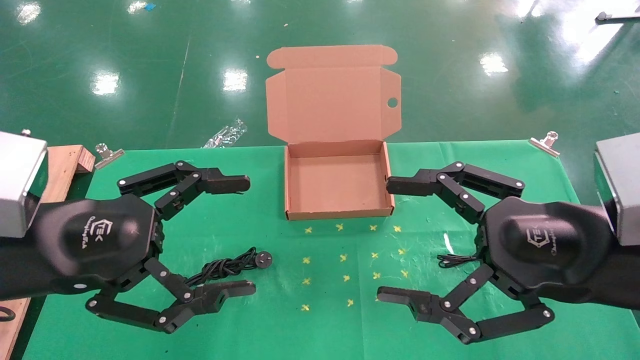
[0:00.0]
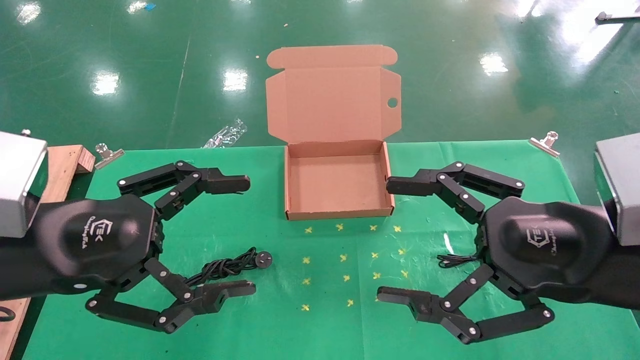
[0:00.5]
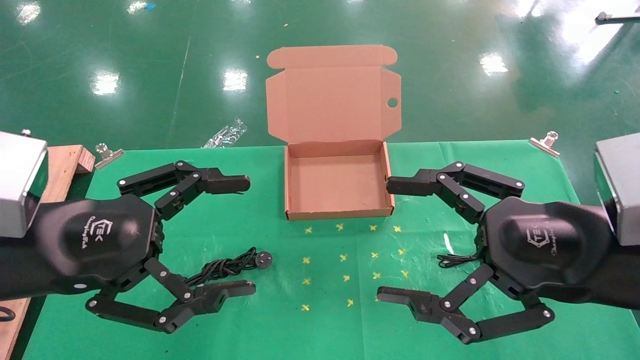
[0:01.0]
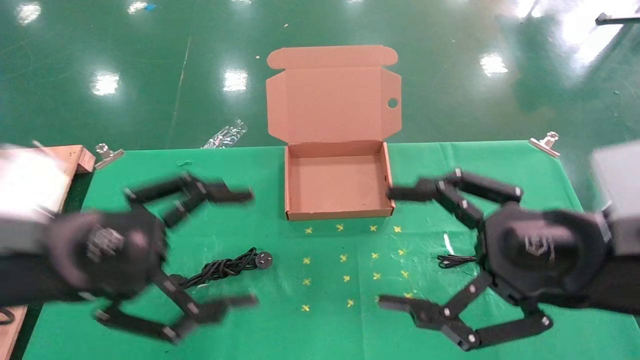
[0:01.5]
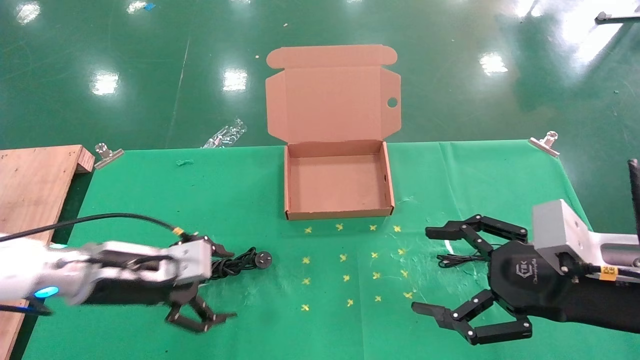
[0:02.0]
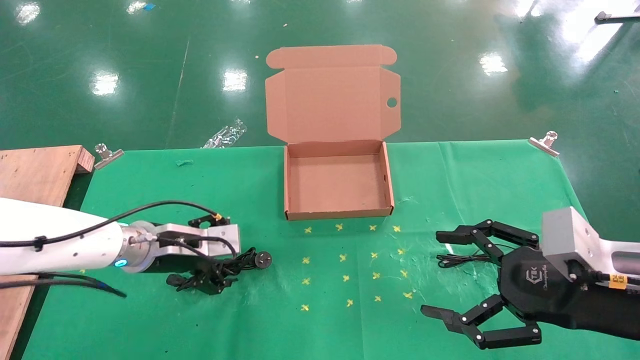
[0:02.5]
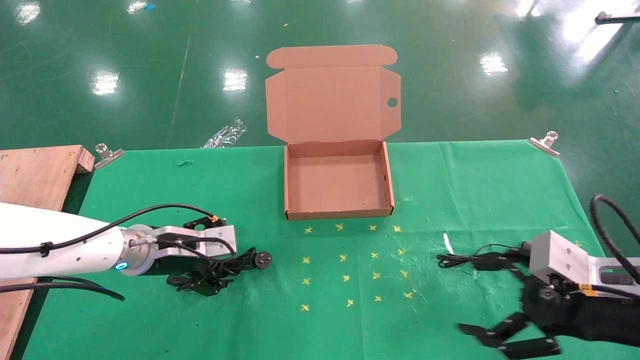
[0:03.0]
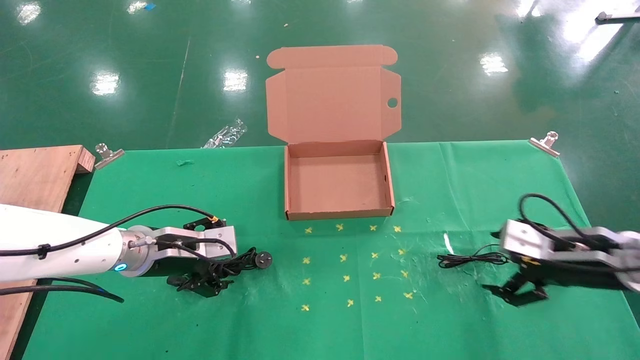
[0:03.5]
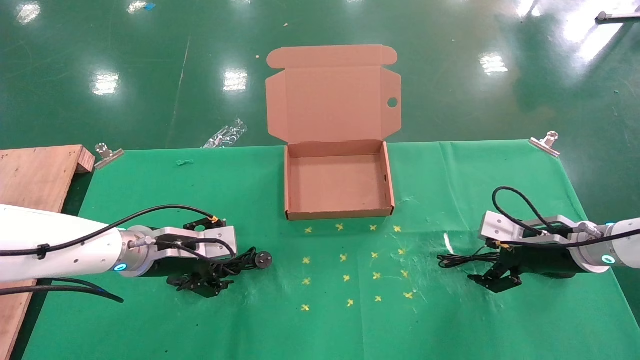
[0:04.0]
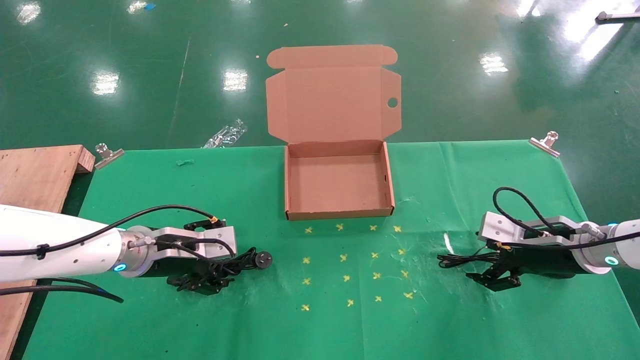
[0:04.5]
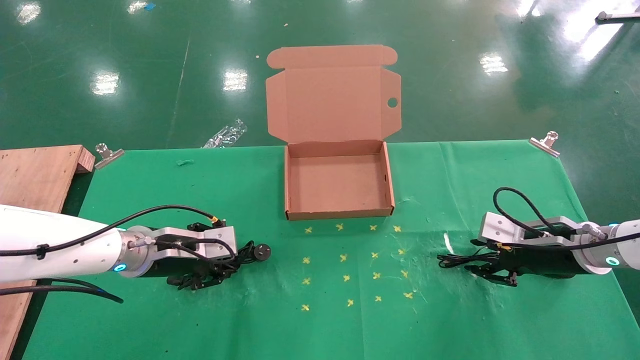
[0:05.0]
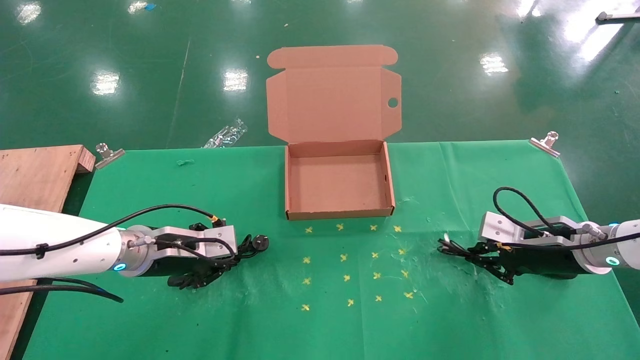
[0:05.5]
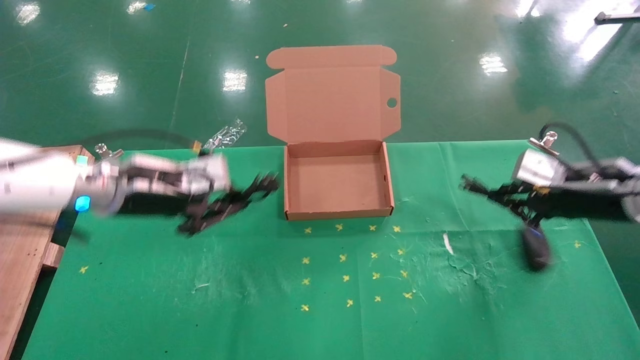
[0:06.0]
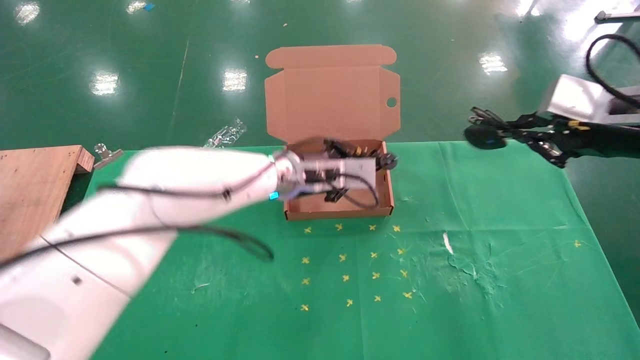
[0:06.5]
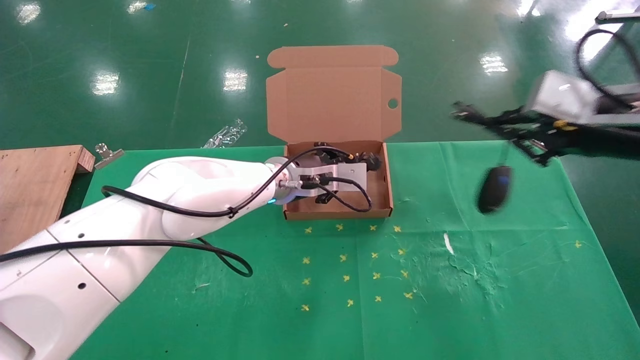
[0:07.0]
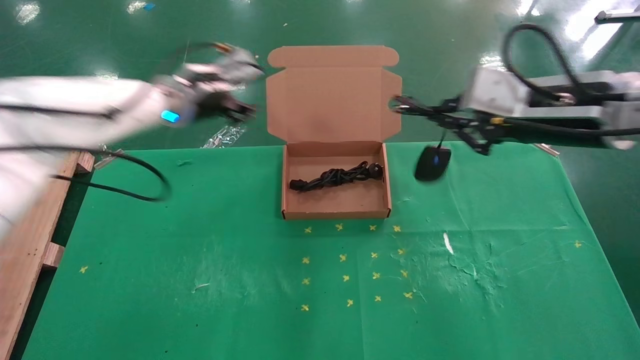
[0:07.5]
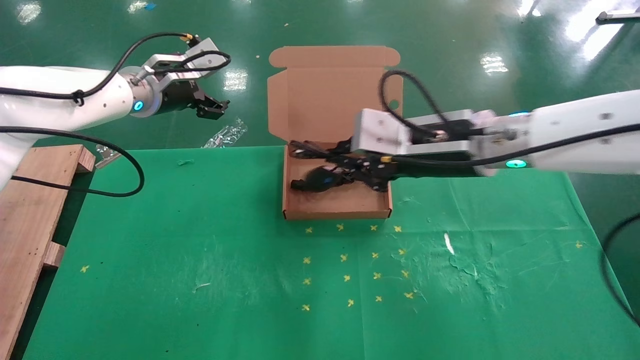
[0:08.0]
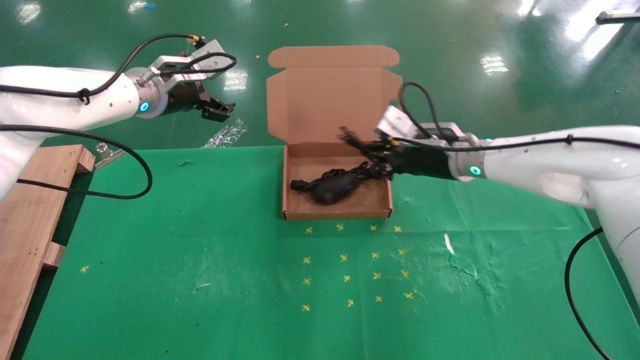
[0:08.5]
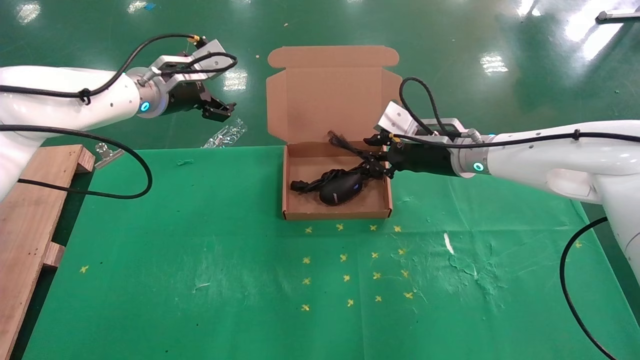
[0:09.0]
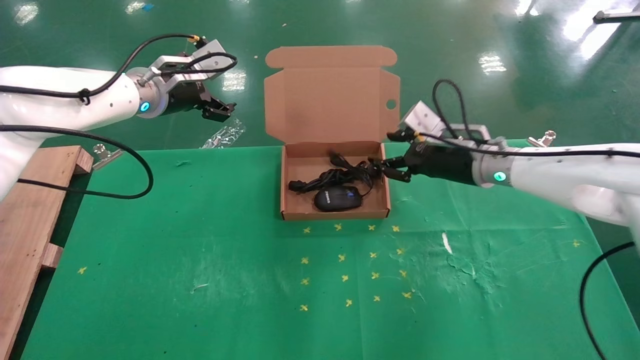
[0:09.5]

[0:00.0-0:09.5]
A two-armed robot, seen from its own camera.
Task of the whole recording: grasp data cable left put into box grasp mouse right put into box.
Step, 0:01.5 to 0:05.5: Simultaneously pick up the mouse and power cord from the accessory packaging area.
Step, 0:06.0 to 0:09.0: Place the mouse and power cord into the box.
0:00.0 to 0:02.0: The left gripper heads forward and downward, covering some 15 cm, while the right gripper goes some 5 cm downward.
0:02.0 to 0:04.0: The left gripper moves forward, about 5 cm. Meanwhile the right gripper travels forward and downward by some 20 cm.
0:04.0 to 0:05.5: The left gripper closes up, while the right gripper closes up.
0:05.5 to 0:07.5: The right gripper travels upward and to the left by roughly 25 cm; the left gripper shifts approximately 20 cm upward and forward, and reaches approximately 20 cm to the right, then returns.
0:07.5 to 0:09.5: The right gripper is displaced forward, downward and to the left by some 15 cm, and opens its fingers; the left gripper ends up about 5 cm from where it was, and opens up.

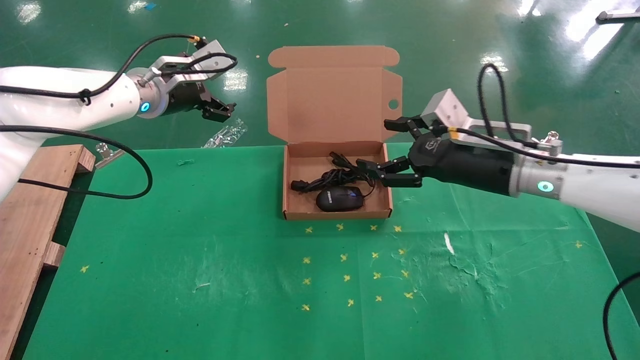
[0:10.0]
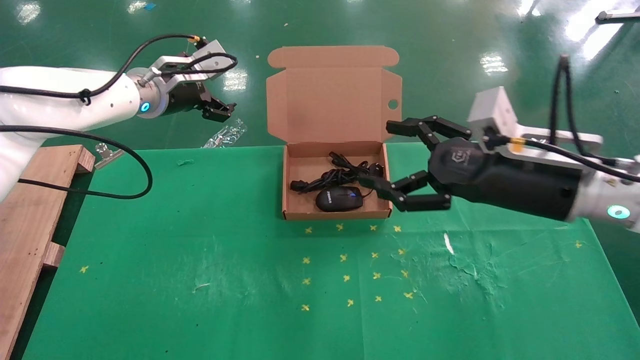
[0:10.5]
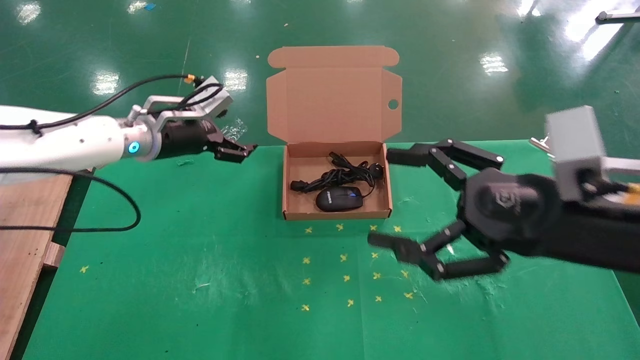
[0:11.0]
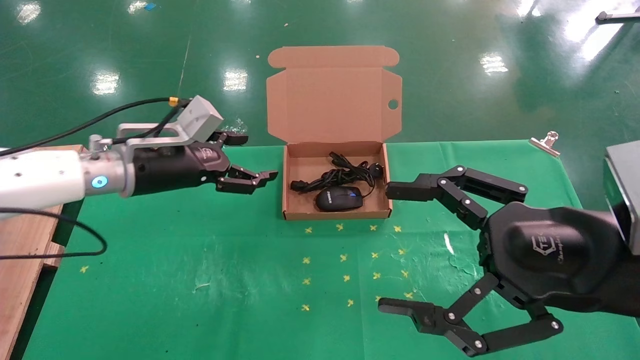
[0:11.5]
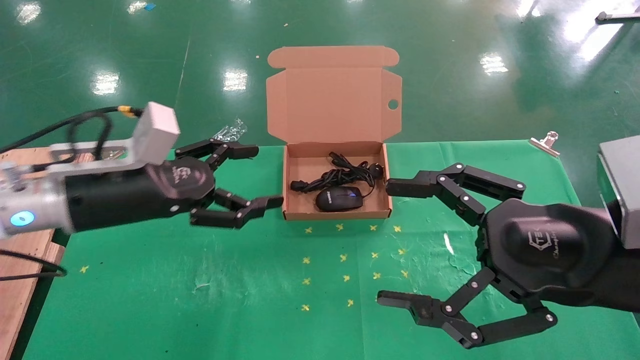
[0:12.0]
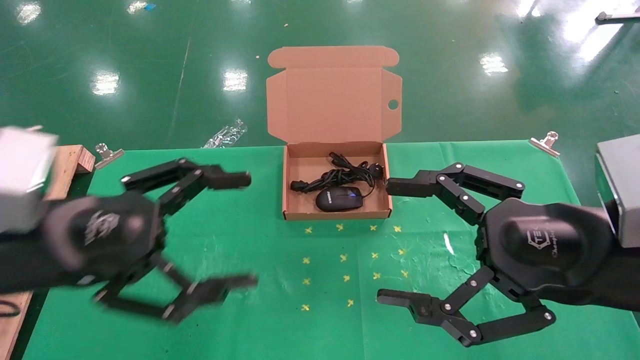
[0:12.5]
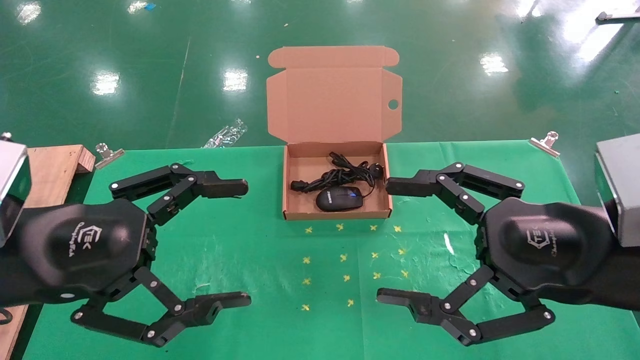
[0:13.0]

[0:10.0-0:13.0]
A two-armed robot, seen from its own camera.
Task of the whole recording: grasp data cable left put into box grasp mouse right put into box.
0:10.0 to 0:11.5: The right gripper goes approximately 20 cm backward. The left gripper shifts roughly 15 cm backward and downward.
0:11.5 to 0:13.0: The left gripper shifts roughly 20 cm backward.
